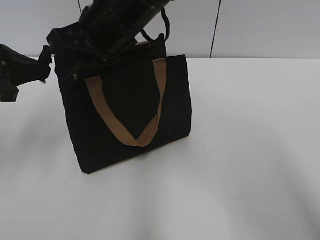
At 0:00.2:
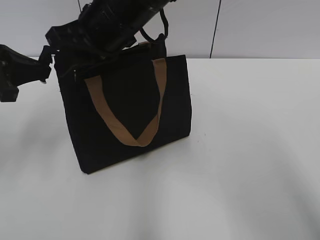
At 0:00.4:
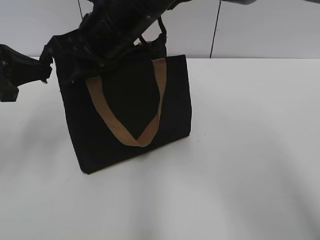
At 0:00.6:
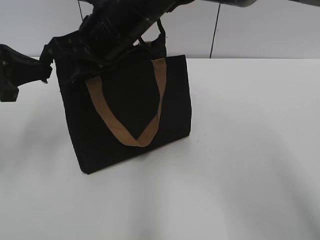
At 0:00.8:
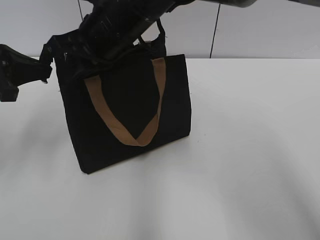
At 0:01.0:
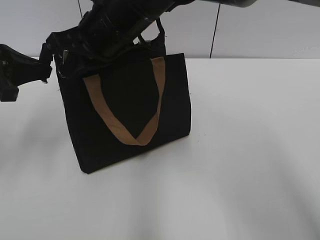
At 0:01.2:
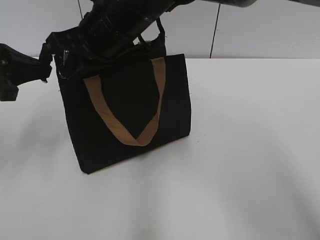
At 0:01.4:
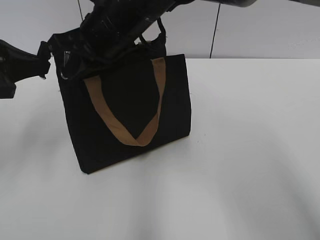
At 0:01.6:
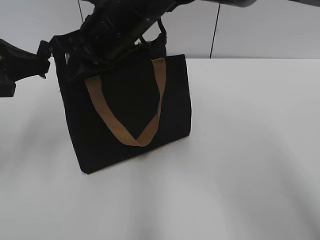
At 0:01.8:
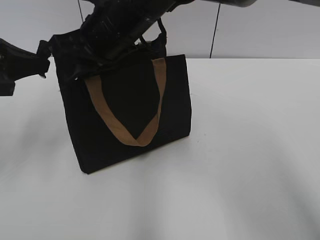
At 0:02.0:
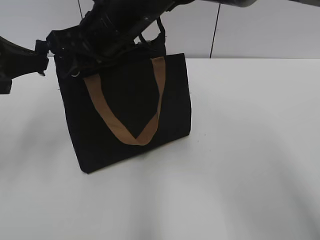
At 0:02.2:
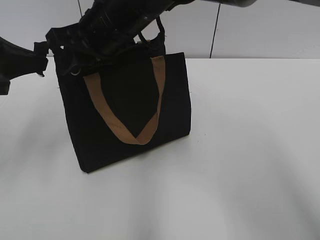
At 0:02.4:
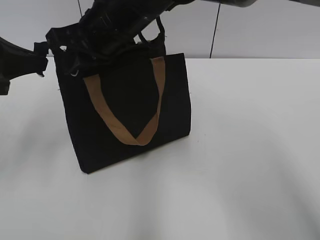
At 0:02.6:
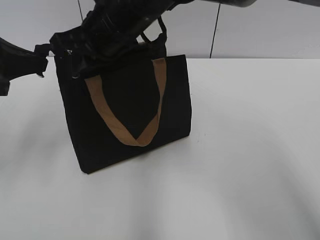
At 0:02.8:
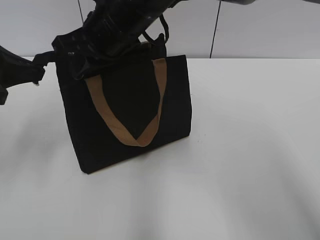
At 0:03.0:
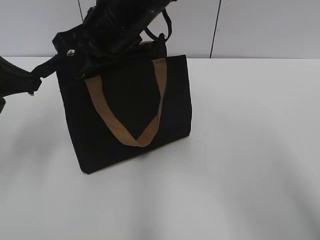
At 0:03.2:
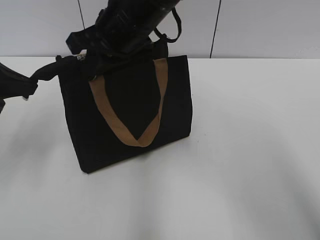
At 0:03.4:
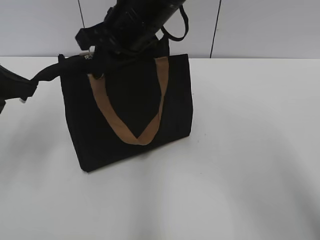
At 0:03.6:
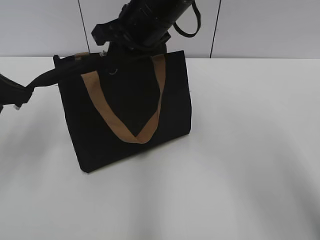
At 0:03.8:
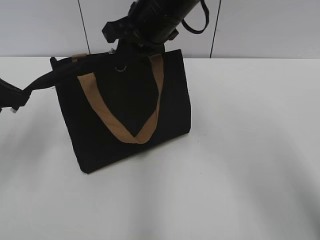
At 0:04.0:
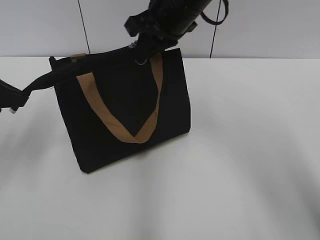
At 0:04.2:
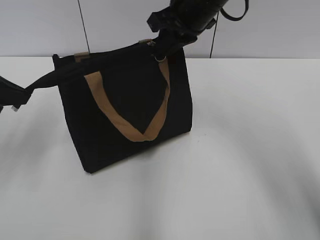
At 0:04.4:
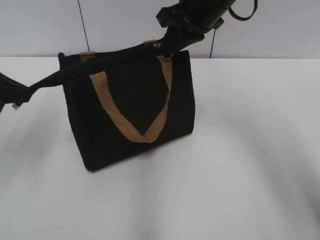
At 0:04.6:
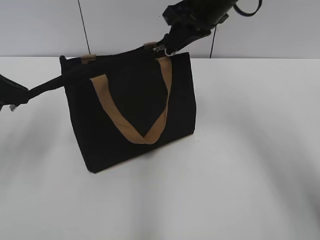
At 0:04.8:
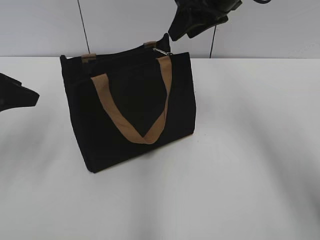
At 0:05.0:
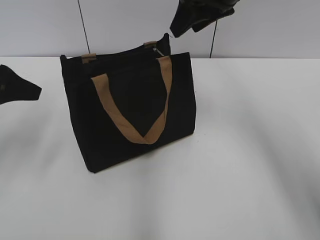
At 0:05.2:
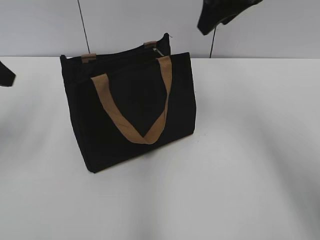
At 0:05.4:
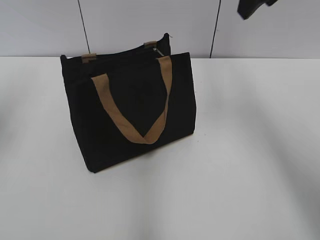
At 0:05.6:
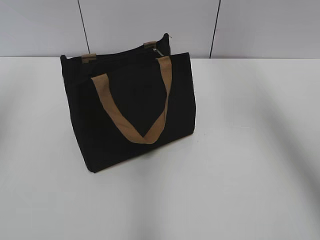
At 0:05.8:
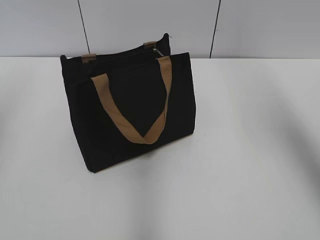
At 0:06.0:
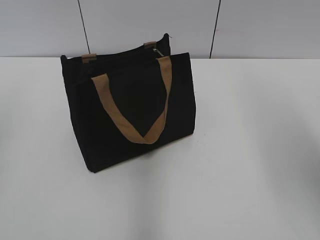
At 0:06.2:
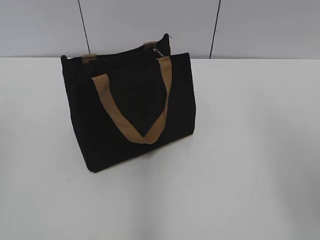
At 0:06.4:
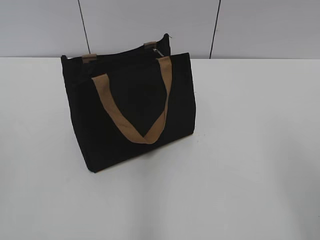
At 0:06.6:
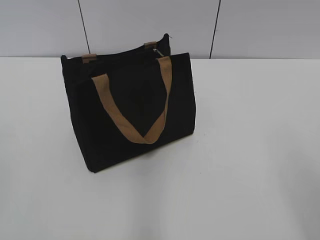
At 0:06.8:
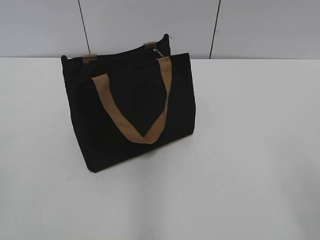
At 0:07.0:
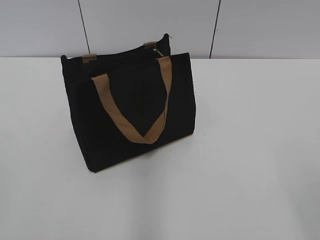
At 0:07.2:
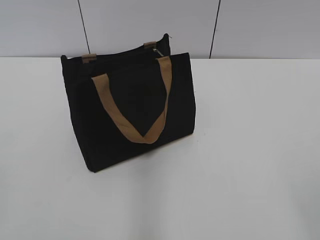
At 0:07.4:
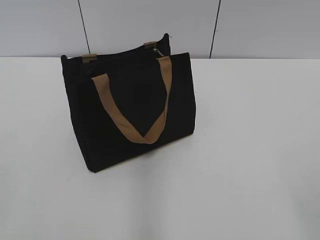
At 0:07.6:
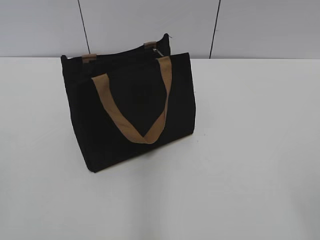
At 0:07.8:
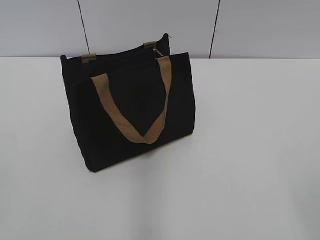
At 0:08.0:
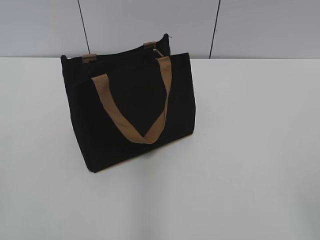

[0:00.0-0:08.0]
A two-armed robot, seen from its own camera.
Step, 0:00.0 to 0:04.4: Zip up the bag with your right hand.
0:00.0 to 0:01.6: The right gripper closes up.
0:01.6 to 0:03.2: The right gripper opens, then closes again.
0:03.2 to 0:04.8: The left gripper opens its fingers; the right gripper travels to the right and forward by roughly 15 cm, and opens up.
0:04.8 to 0:06.4: The left gripper heads backward, covering some 20 cm; the right gripper moves backward and to the right, some 35 cm.
